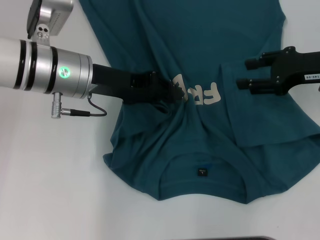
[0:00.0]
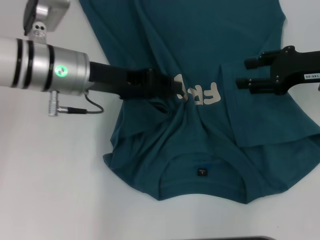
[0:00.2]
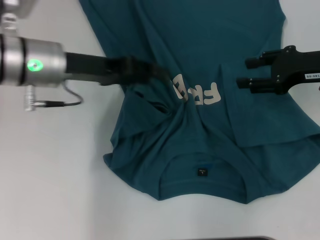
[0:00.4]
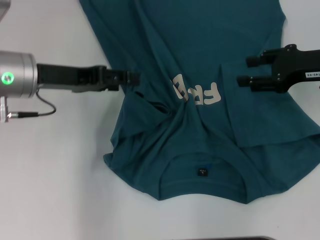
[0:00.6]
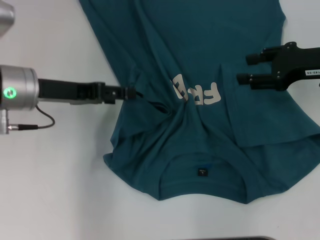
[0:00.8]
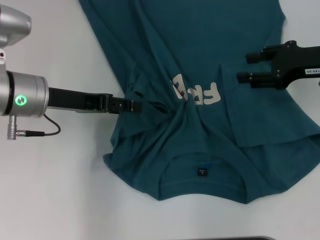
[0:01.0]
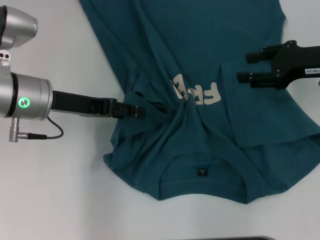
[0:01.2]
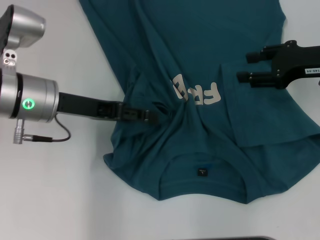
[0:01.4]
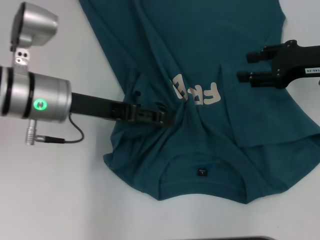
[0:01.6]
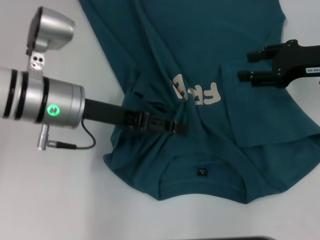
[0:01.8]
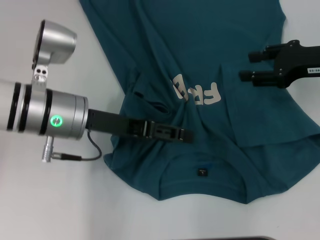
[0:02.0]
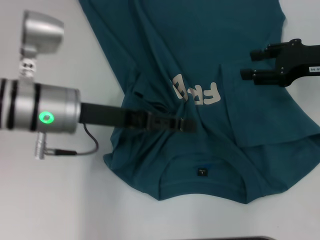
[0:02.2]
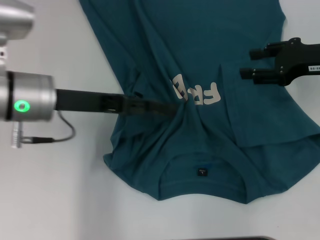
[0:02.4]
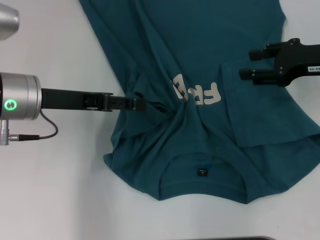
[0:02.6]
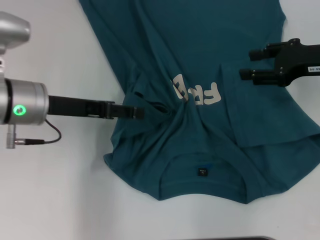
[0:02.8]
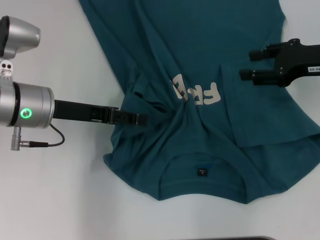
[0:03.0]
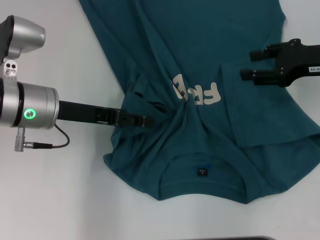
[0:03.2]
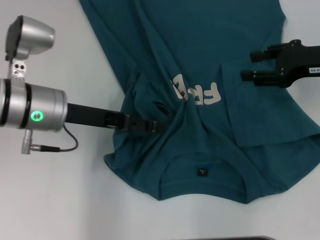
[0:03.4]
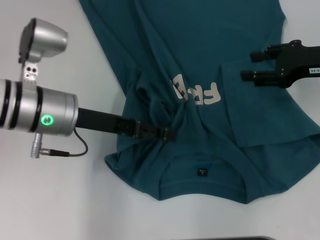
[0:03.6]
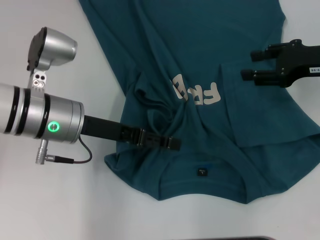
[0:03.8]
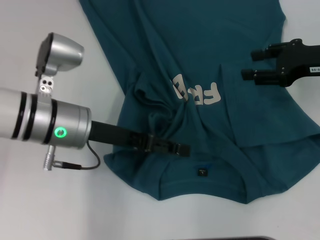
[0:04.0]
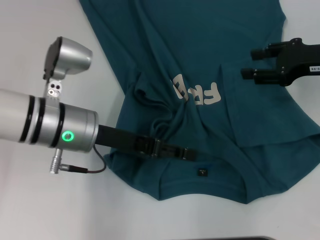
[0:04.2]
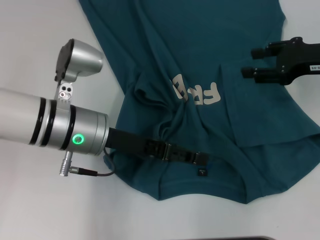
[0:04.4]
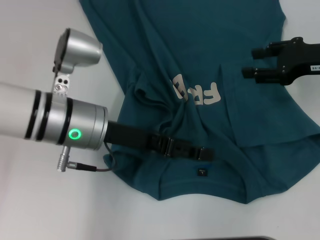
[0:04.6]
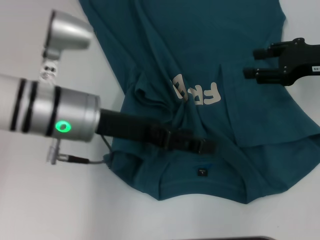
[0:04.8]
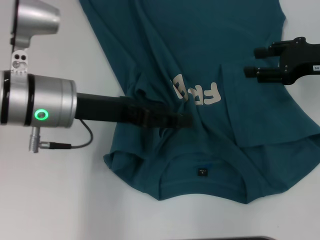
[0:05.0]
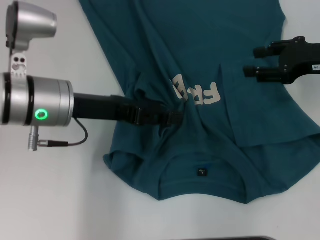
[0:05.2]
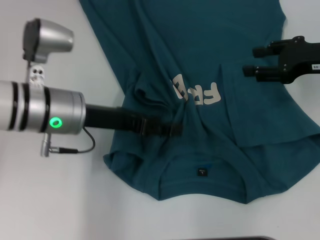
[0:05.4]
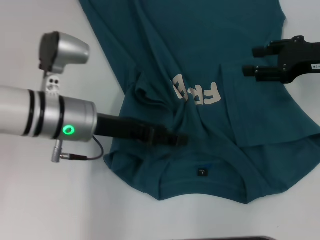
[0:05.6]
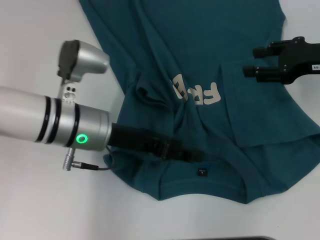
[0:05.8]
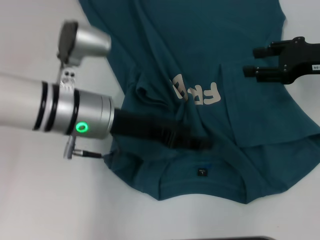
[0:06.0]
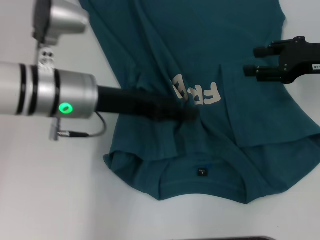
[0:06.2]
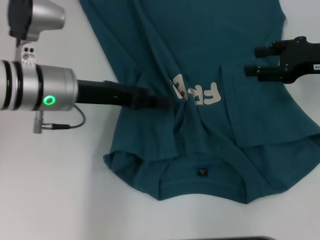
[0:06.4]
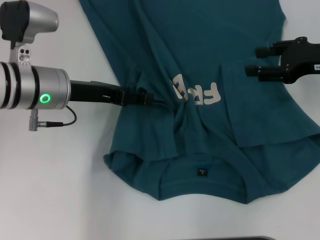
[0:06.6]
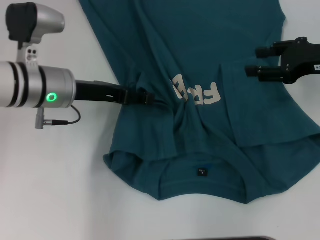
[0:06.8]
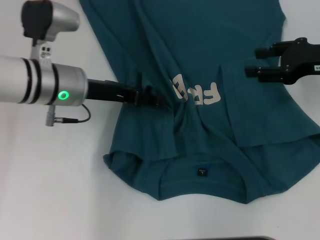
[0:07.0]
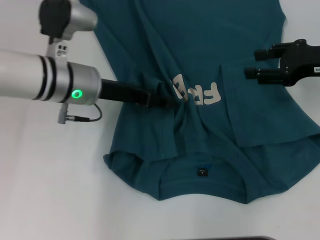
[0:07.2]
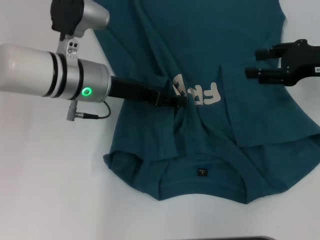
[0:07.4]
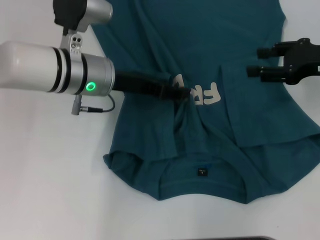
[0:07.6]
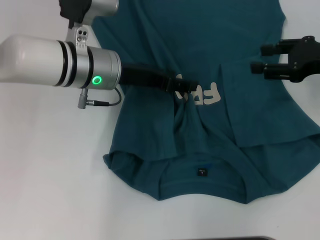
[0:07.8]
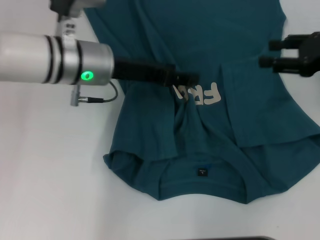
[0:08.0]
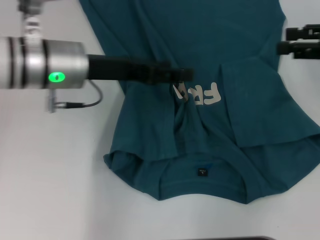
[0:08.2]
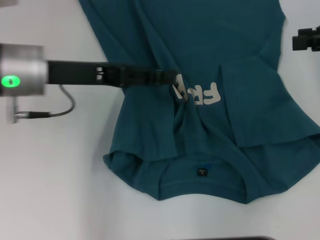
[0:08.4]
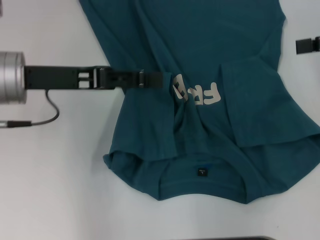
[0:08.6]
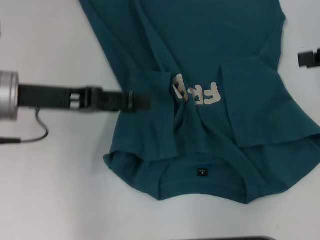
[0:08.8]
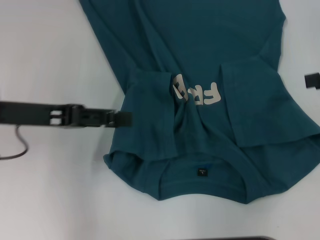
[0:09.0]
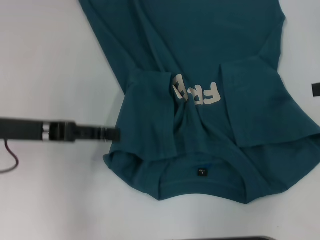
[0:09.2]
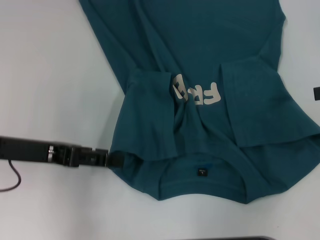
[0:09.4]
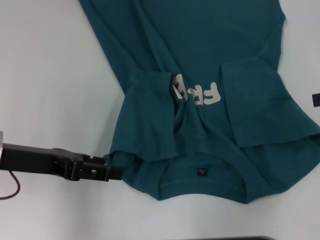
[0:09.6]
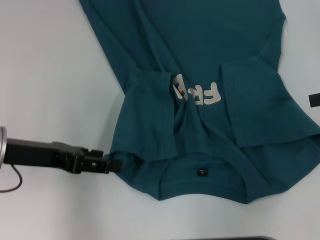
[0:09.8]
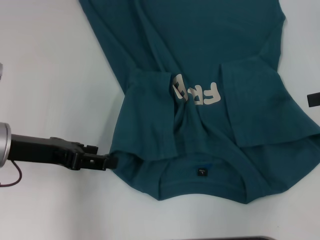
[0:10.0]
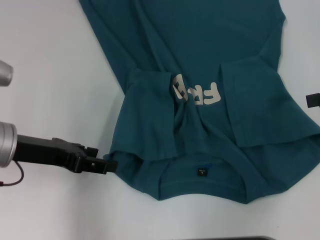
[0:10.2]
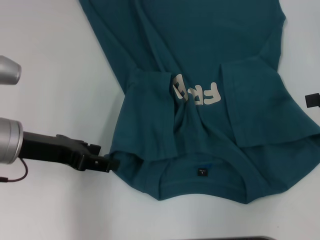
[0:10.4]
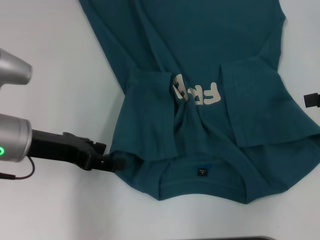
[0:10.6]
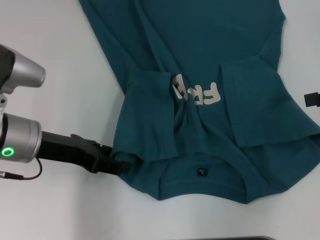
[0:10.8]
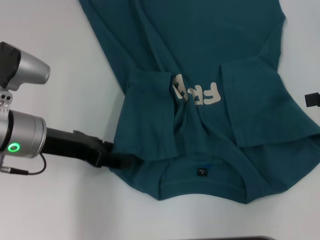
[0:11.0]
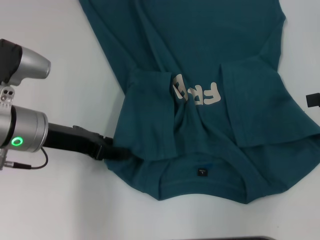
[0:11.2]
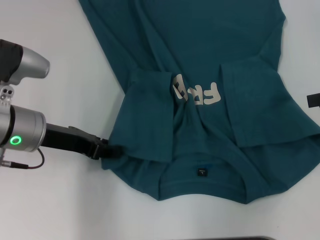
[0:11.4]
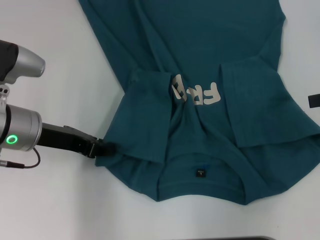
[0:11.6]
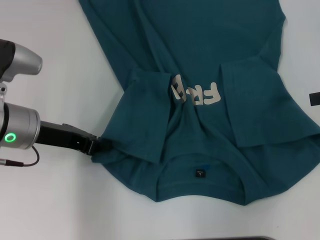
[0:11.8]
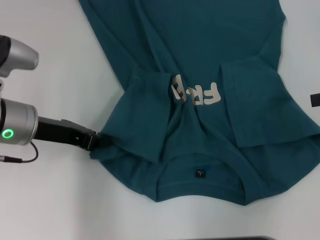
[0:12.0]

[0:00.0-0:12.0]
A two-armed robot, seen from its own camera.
Step, 0:00.0 to 0:08.0: Fold the bottom left sleeve with your left hand.
Step, 0:08.2 to 0:11.8: Grab the bottom left corner with your left hand.
0:00.0 to 0:01.6: The left gripper opens up.
0:01.6 to 0:03.0: There are only small adjustments of the grippers.
0:03.0 to 0:04.4: The left gripper moves to the right, roughly 5 cm.
0:04.4 to 0:06.0: The grippers stay close to where they were, moving slightly.
0:06.0 to 0:07.6: The left gripper goes roughly 5 cm forward.
0:07.6 to 0:09.0: The left gripper goes some 15 cm to the left and backward. Meanwhile the right gripper travels to the right and upward by approximately 10 cm.
0:10.4 to 0:12.0: The left gripper closes.

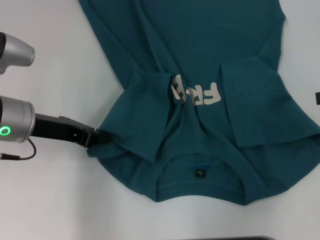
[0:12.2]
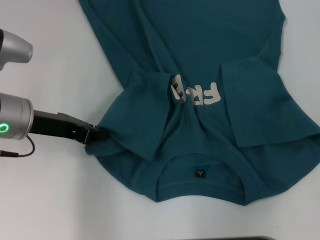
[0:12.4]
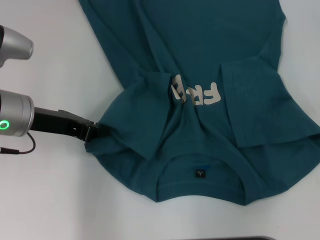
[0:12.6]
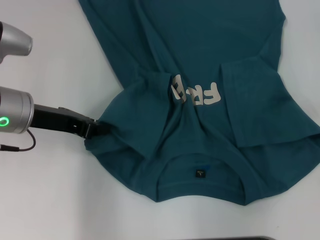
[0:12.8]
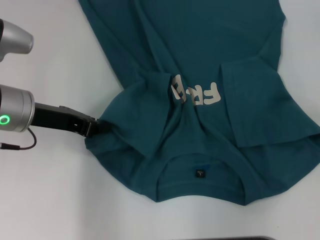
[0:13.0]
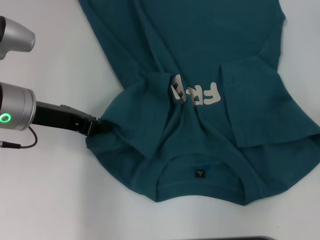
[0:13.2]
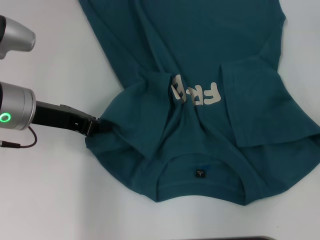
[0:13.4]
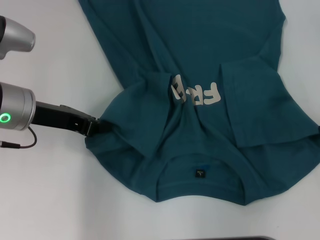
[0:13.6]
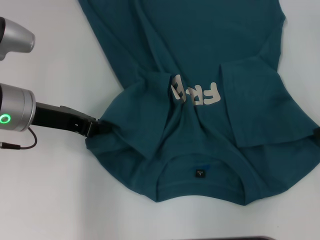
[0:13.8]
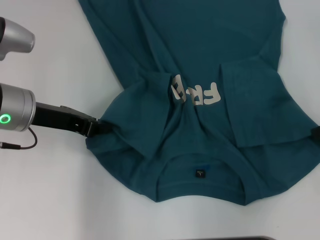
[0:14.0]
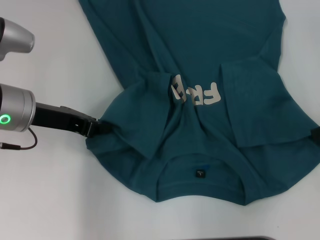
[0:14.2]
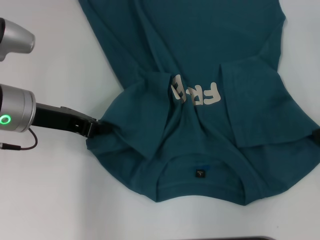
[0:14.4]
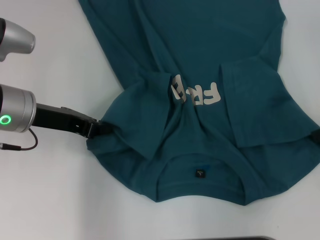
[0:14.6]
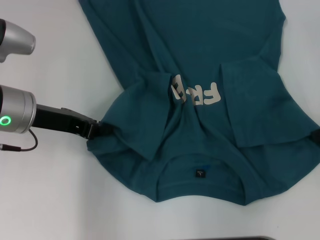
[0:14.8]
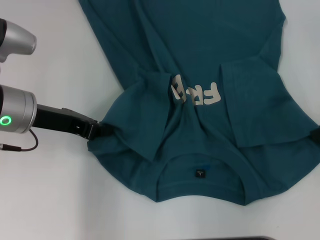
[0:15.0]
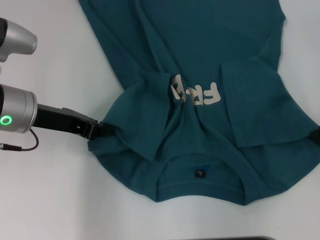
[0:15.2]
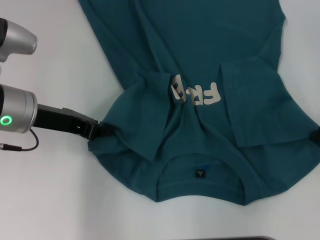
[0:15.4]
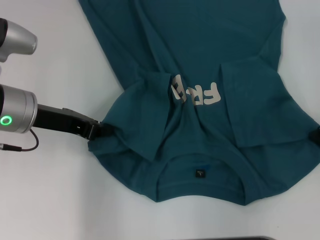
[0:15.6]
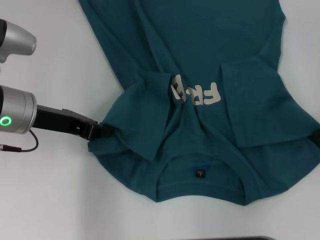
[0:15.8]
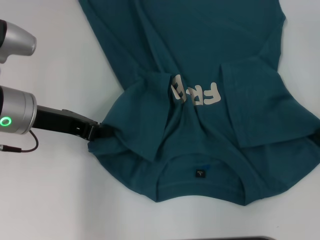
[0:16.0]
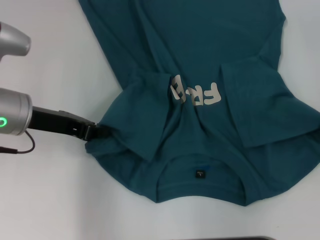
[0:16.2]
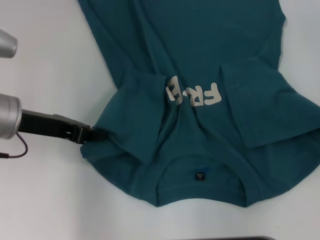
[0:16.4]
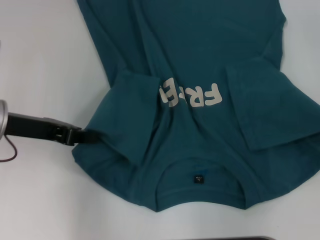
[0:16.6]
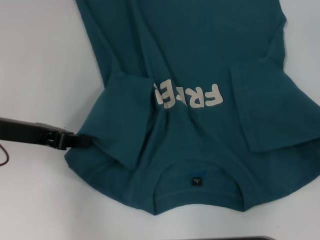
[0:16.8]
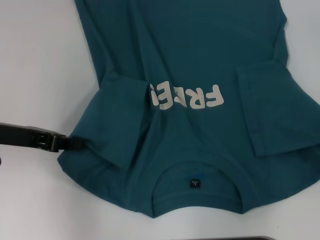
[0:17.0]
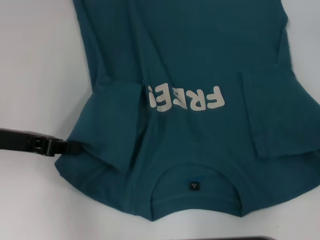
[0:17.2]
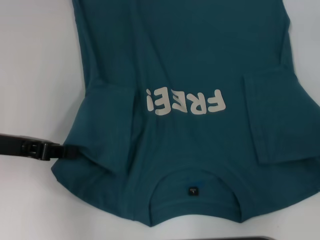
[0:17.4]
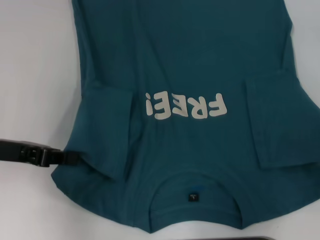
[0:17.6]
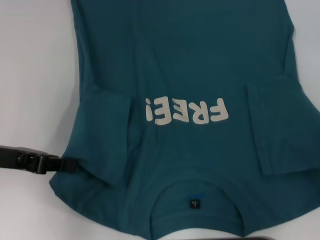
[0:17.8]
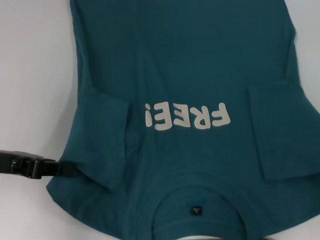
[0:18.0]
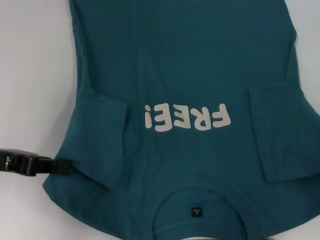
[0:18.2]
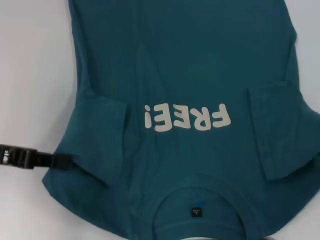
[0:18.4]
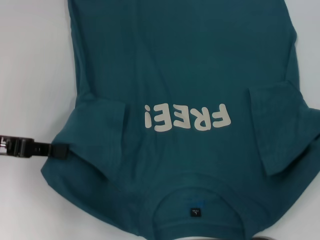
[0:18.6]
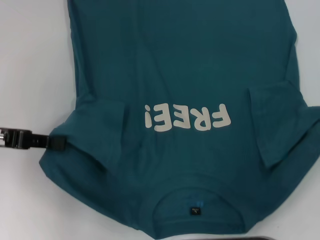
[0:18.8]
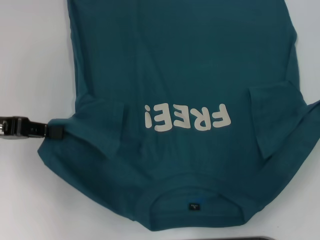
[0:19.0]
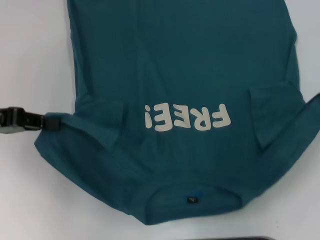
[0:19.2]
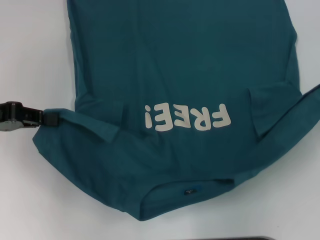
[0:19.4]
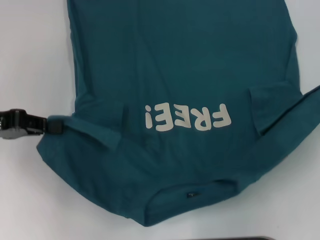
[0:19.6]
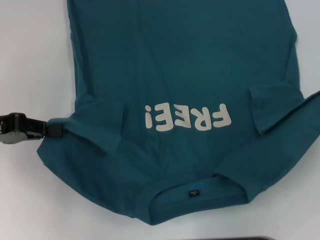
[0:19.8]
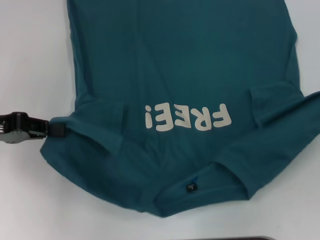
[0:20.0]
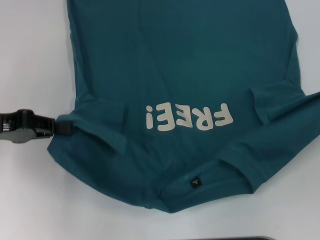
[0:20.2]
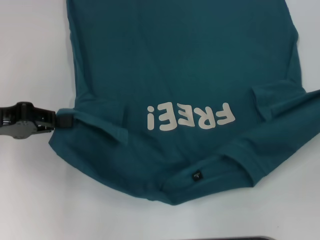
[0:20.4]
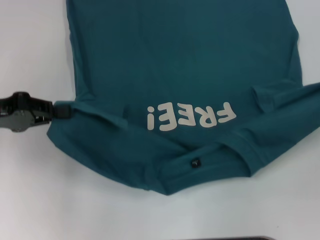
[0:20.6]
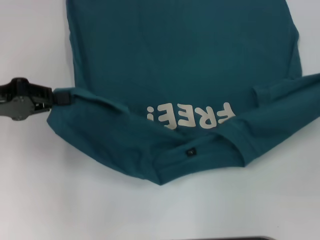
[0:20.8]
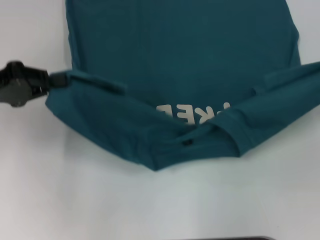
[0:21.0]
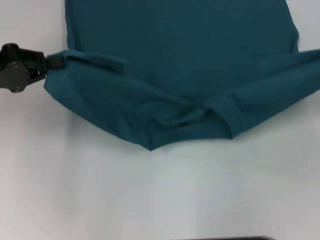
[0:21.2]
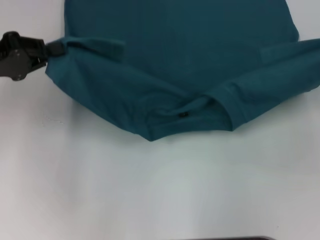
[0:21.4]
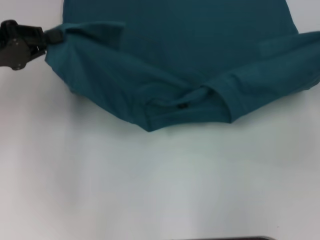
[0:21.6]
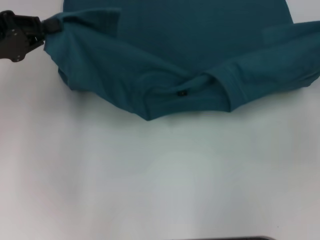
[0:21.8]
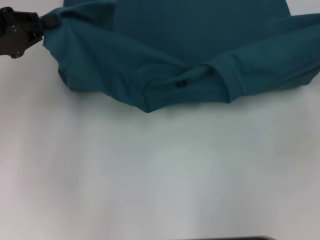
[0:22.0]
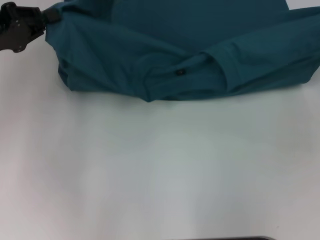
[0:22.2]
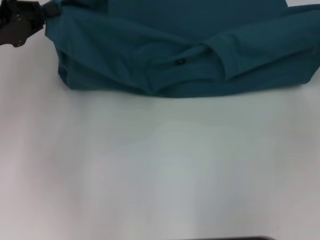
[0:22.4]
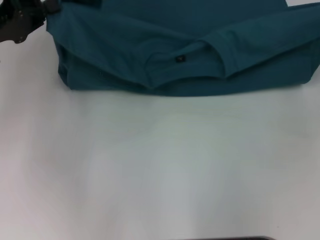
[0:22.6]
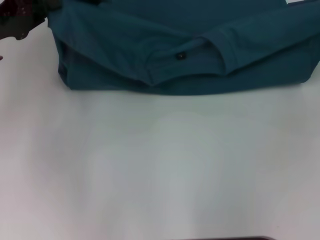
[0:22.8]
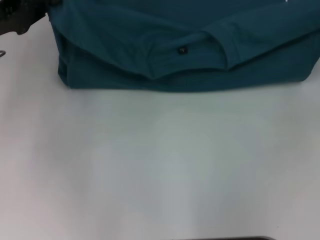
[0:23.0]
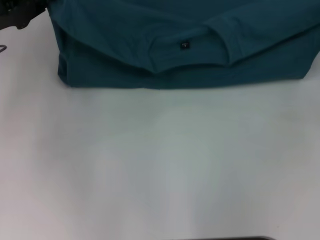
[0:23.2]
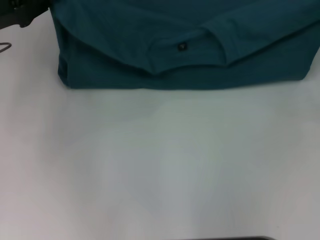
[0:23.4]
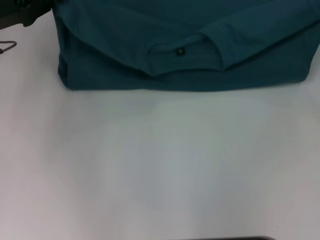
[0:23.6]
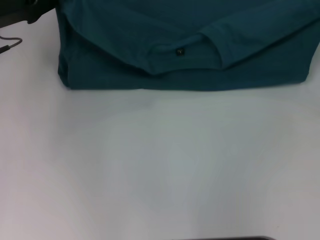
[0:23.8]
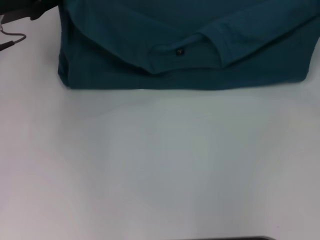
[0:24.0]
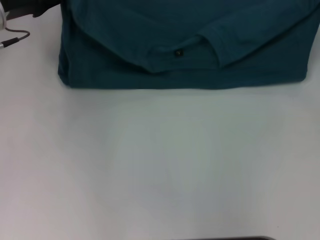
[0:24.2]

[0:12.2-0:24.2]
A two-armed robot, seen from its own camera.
Step, 0:12.2 to 0:15.8: Grab the bottom right corner with your right hand.
0:12.2 to 0:15.2: The grippers move only a little.
0:15.2 to 0:16.6: The right gripper closes.
0:16.6 to 0:18.2: The left gripper moves some 5 cm; the right gripper ends up approximately 5 cm from where it was.
0:22.6 to 0:24.2: The two grippers go roughly 5 cm forward.
